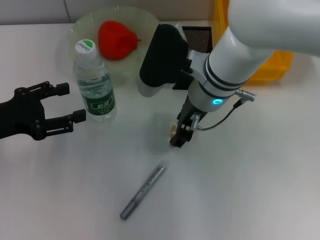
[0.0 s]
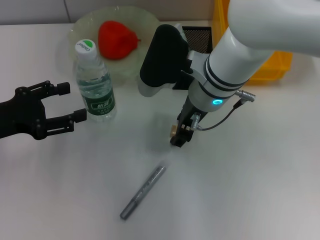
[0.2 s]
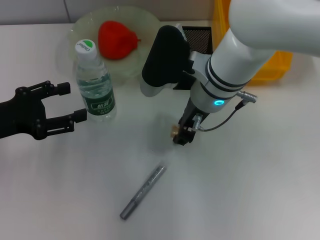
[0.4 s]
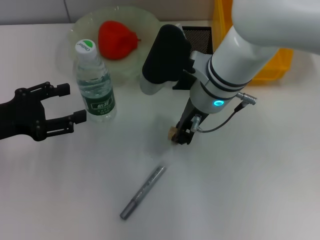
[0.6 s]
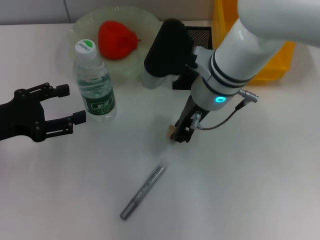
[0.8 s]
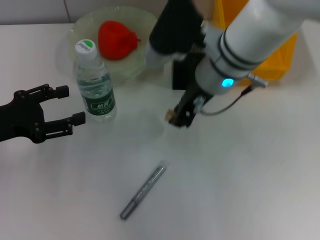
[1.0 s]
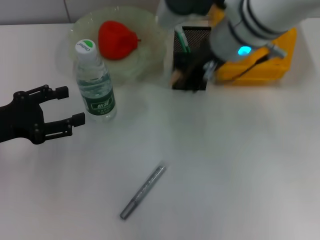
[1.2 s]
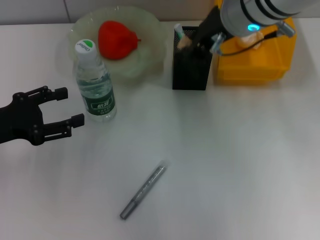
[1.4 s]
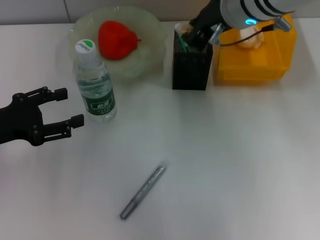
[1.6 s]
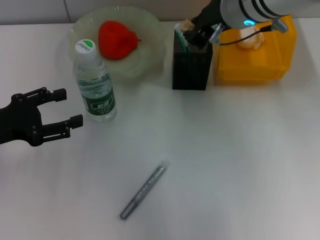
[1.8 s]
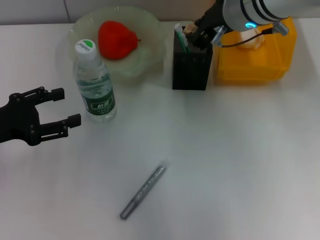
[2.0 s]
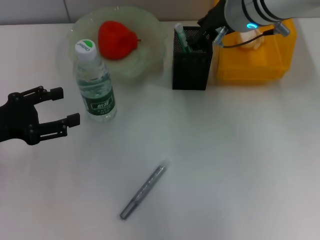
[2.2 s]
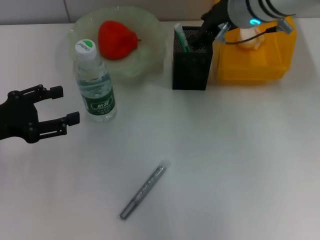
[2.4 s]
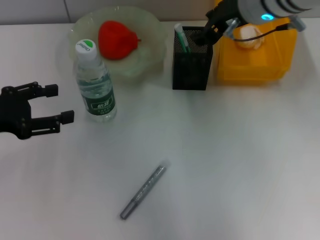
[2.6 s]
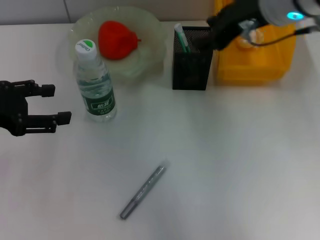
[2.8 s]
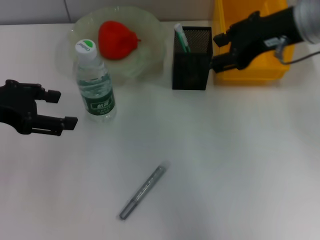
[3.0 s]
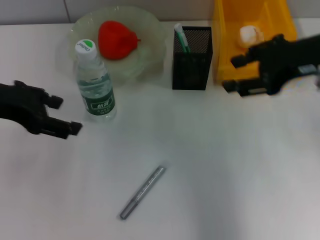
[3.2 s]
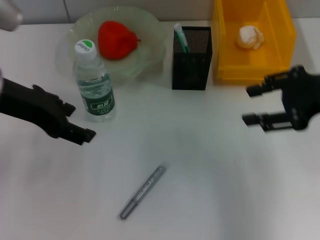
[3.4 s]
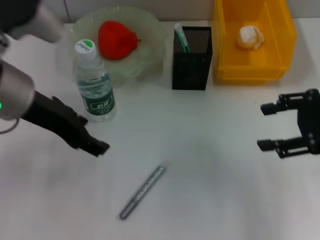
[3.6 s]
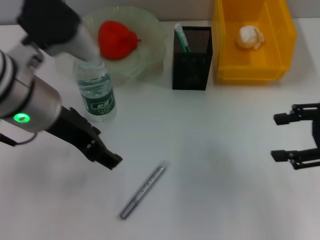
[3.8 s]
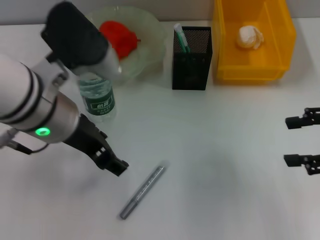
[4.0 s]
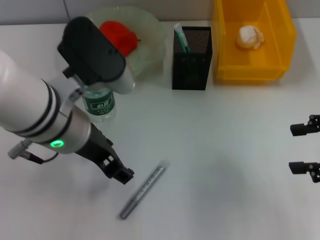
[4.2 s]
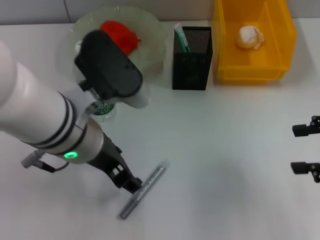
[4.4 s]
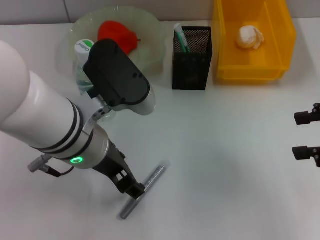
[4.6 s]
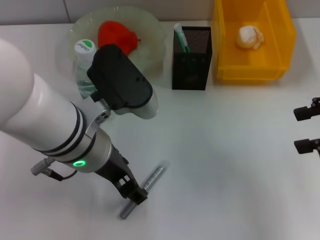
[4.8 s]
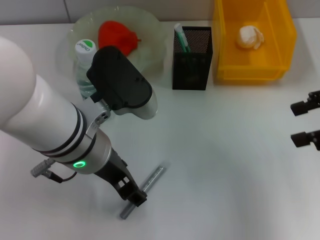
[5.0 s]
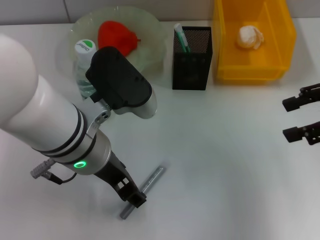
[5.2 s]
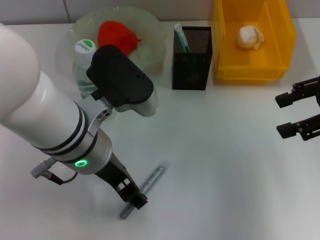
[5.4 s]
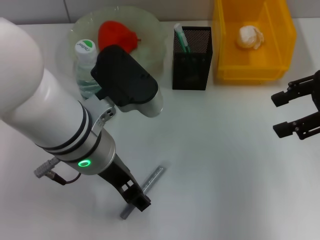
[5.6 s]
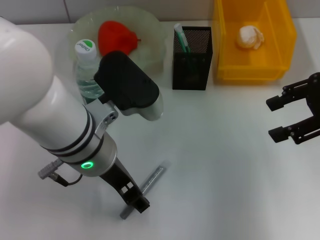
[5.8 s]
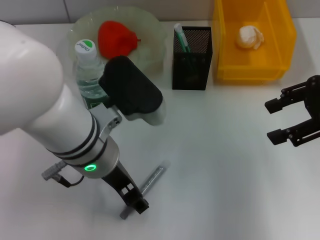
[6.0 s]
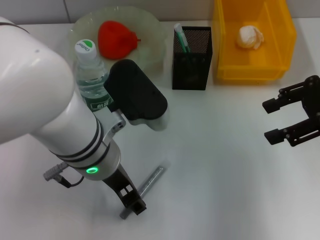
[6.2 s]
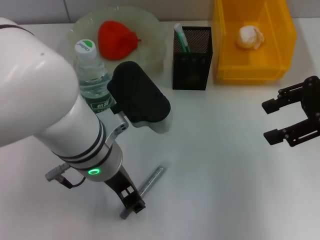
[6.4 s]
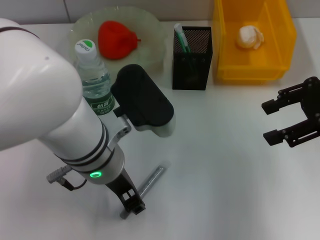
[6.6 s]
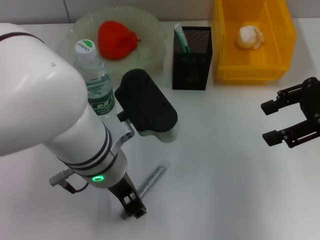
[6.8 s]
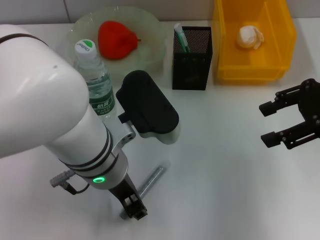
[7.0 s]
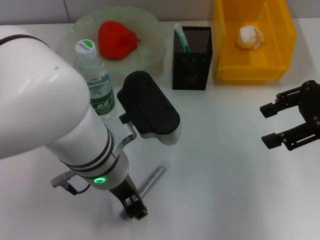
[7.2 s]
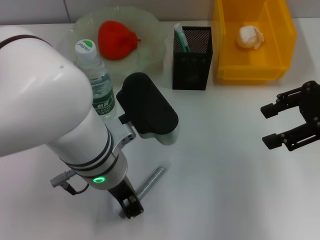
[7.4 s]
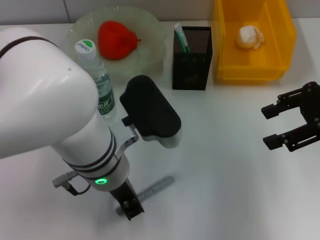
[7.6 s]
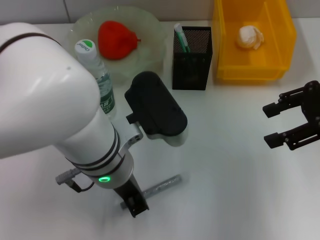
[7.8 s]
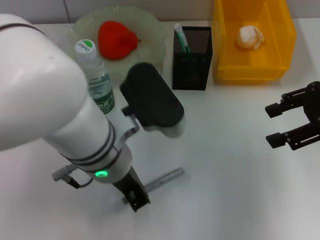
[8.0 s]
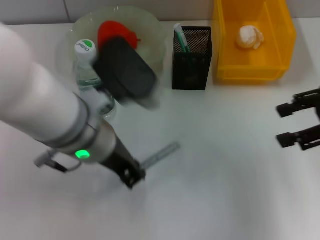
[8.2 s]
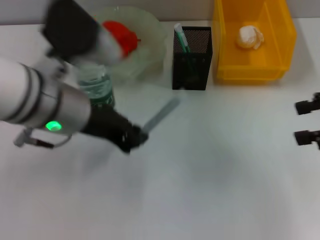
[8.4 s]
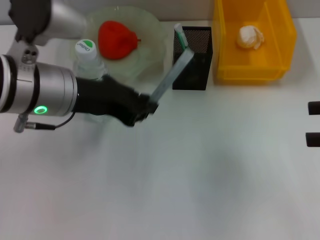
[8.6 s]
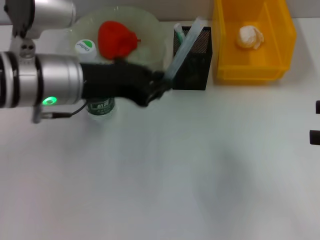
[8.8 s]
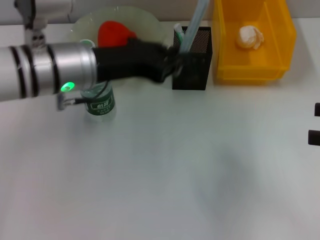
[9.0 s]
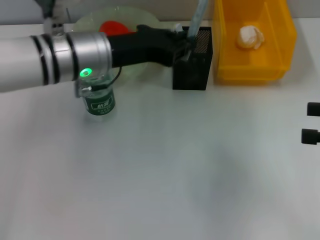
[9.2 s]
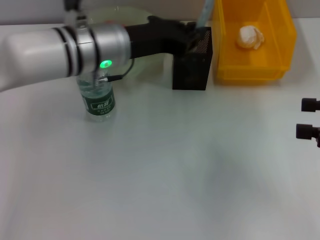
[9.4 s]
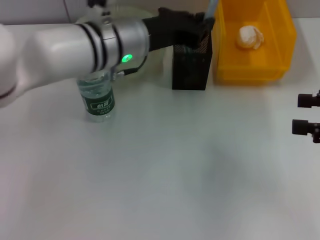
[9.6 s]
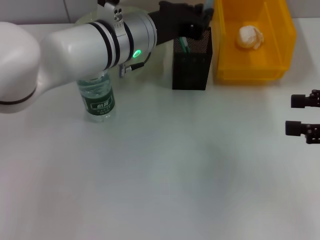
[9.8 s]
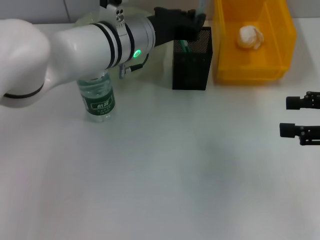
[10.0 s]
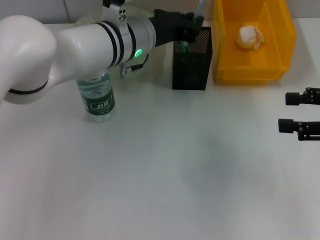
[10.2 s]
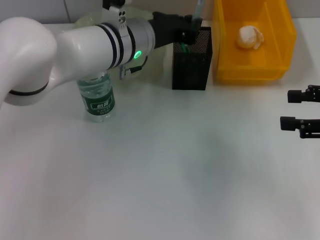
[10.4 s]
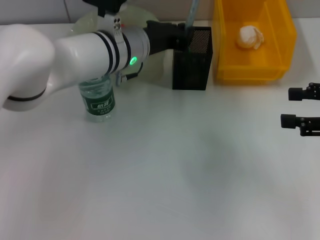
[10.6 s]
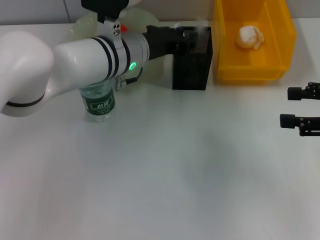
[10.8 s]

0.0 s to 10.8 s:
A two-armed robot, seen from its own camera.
Step, 0.8 to 2.4 s: Put the eraser into the pen holder with the right hand.
Step, 2.6 to 7.8 s: Grab the gray glue with the left hand.
0.0 to 1.6 s: The right gripper shifts about 10 cm upward, and closes.
1.6 to 3.0 s: The right gripper is displaced to the right by some 10 cm, and opens its fingers. Meanwhile the left gripper is displaced upward by some 10 cm.
3.0 to 4.6 s: The left gripper travels to the right by approximately 20 cm. The right gripper is displaced to the right and backward by approximately 20 cm.
4.6 to 6.2 s: The right gripper moves forward, roughly 5 cm.
6.2 to 7.8 s: The left gripper closes.
7.8 to 9.2 s: The right gripper heads backward and to the right, covering some 10 cm. The left gripper moves forward and to the left, some 10 cm.
9.2 to 10.8 s: The left gripper is displaced to the right by roughly 5 cm.

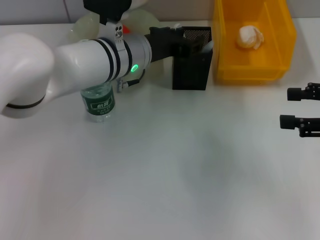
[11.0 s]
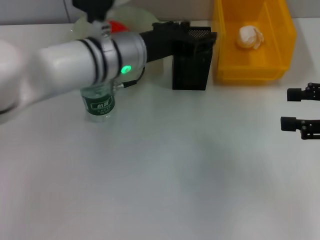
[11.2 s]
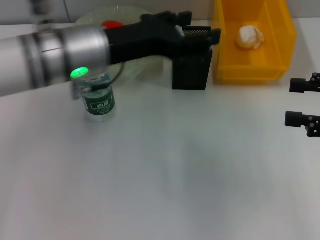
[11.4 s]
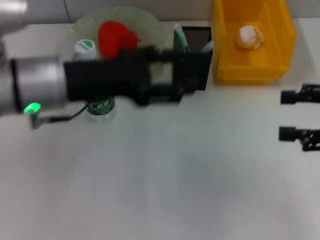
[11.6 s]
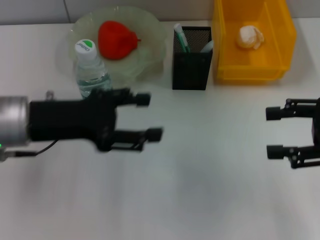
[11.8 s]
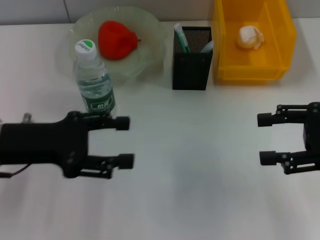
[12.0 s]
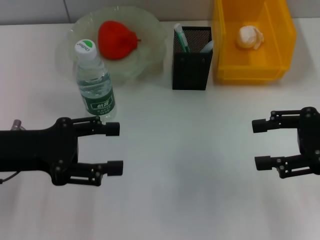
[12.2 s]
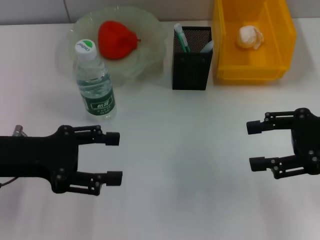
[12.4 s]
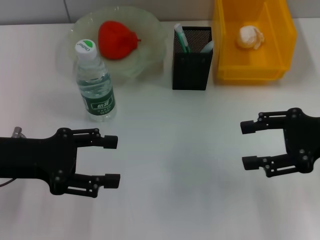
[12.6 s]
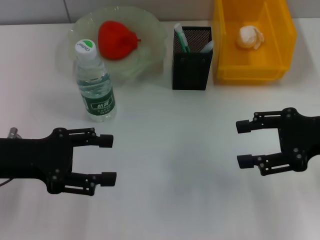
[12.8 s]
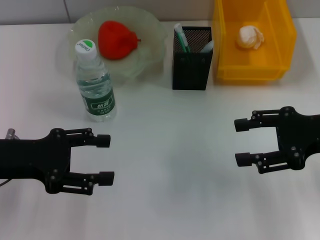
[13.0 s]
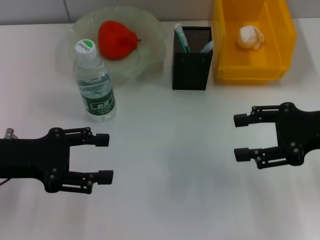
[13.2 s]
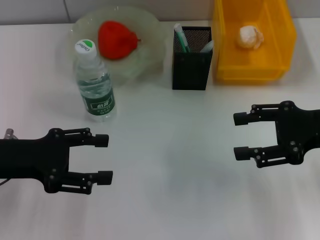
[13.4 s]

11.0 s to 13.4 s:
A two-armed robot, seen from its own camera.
11.0 to 12.2 s: The left gripper heads to the left and backward, covering approximately 25 cm, and opens its fingers.
12.2 to 13.4 s: The grippers stay close to where they were, moving slightly.

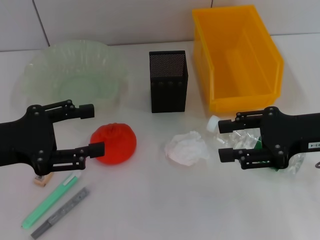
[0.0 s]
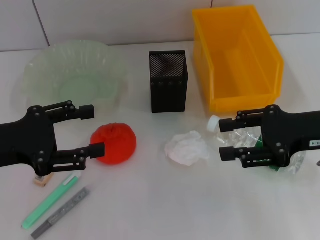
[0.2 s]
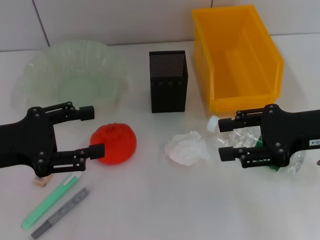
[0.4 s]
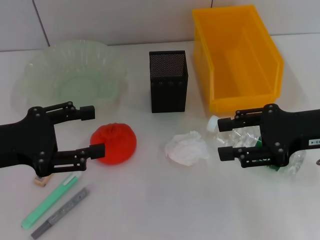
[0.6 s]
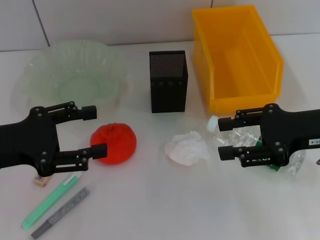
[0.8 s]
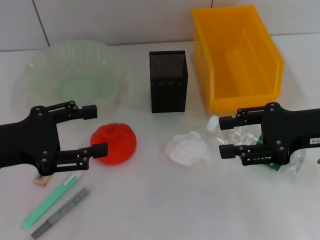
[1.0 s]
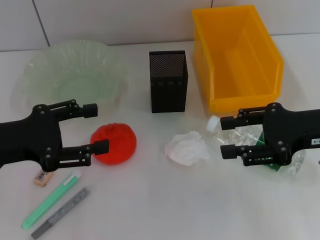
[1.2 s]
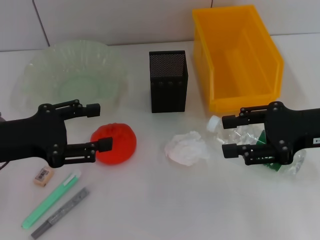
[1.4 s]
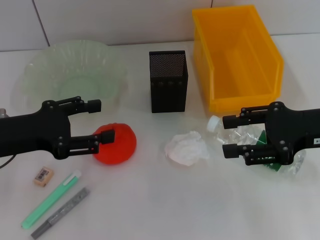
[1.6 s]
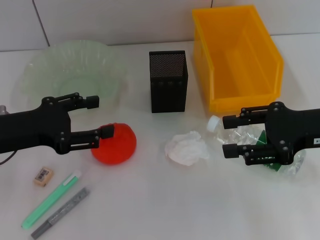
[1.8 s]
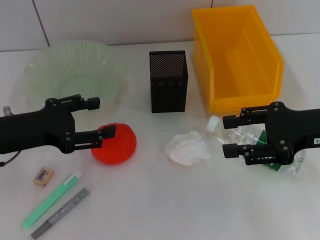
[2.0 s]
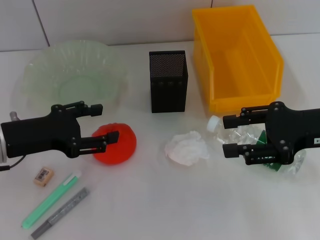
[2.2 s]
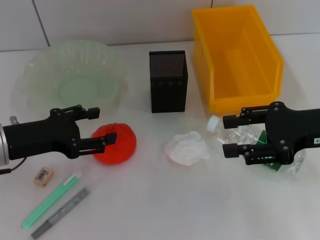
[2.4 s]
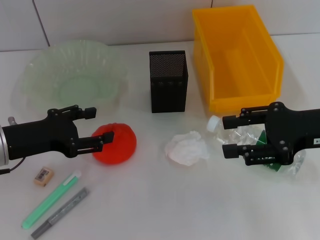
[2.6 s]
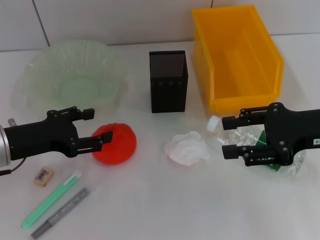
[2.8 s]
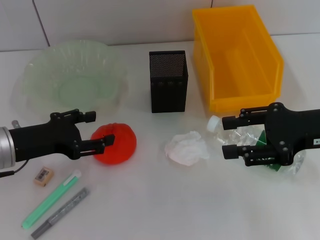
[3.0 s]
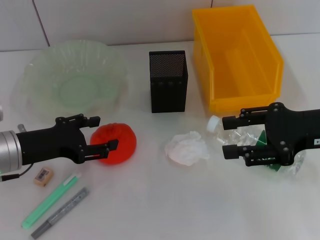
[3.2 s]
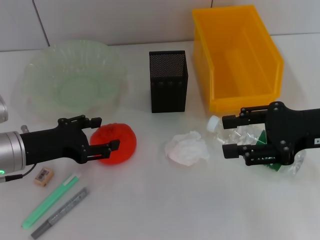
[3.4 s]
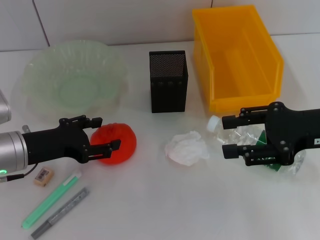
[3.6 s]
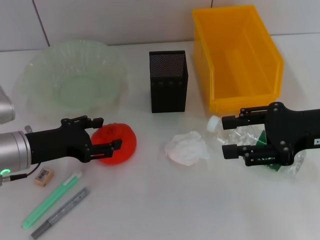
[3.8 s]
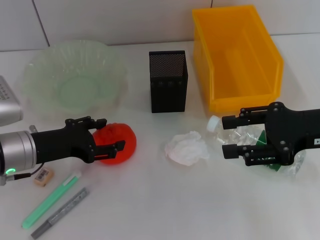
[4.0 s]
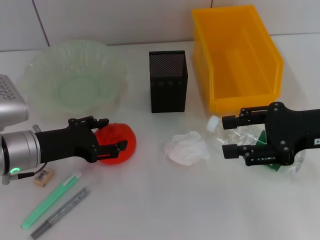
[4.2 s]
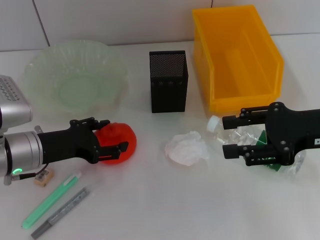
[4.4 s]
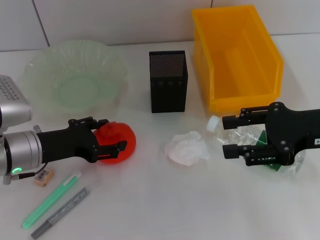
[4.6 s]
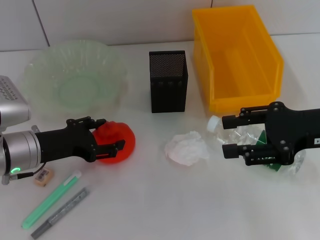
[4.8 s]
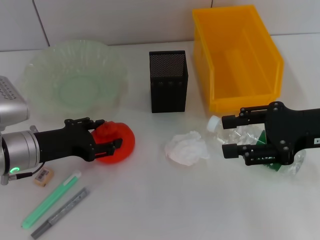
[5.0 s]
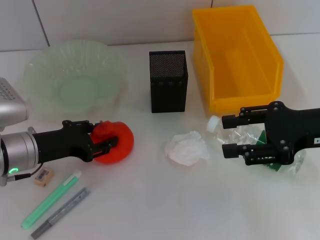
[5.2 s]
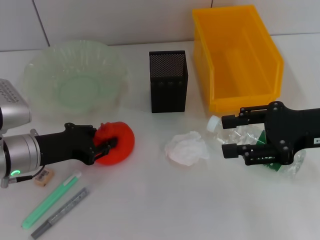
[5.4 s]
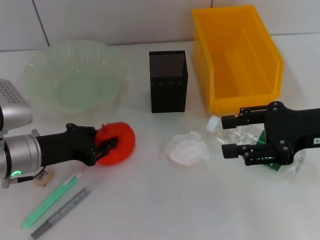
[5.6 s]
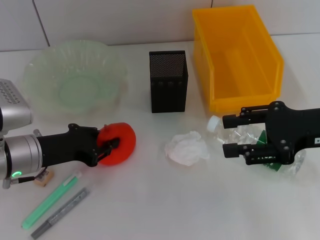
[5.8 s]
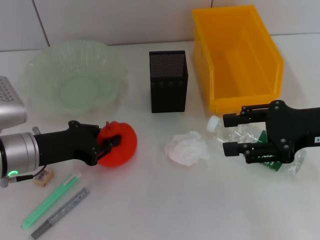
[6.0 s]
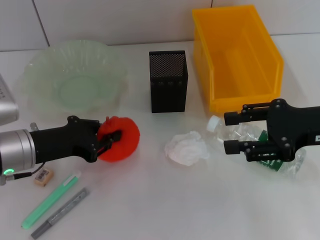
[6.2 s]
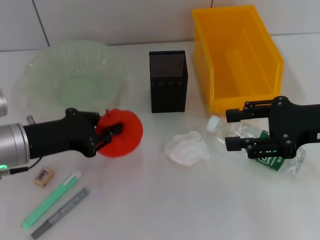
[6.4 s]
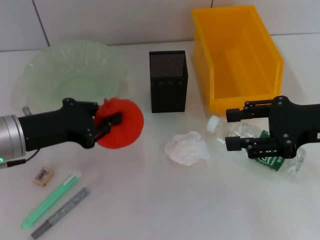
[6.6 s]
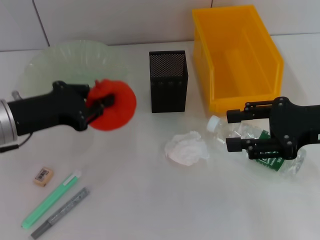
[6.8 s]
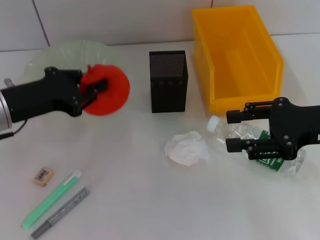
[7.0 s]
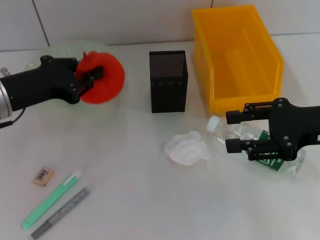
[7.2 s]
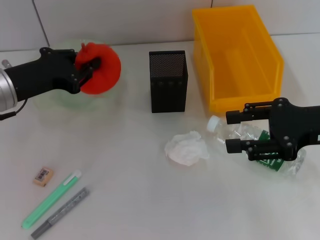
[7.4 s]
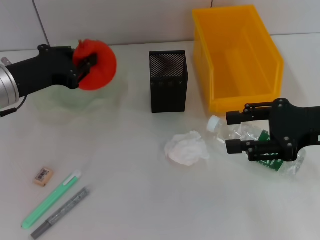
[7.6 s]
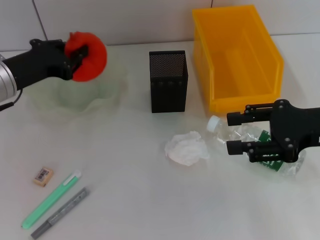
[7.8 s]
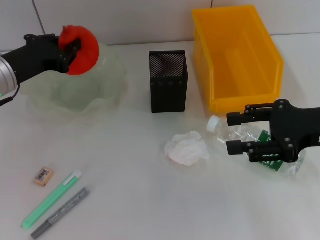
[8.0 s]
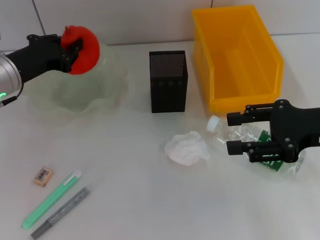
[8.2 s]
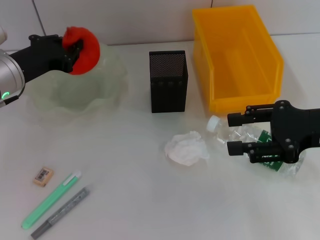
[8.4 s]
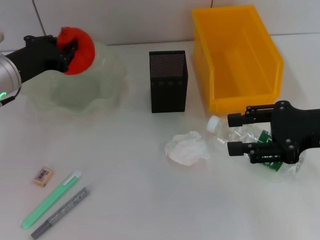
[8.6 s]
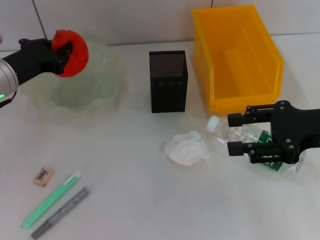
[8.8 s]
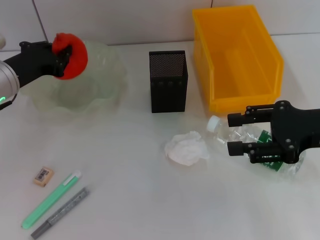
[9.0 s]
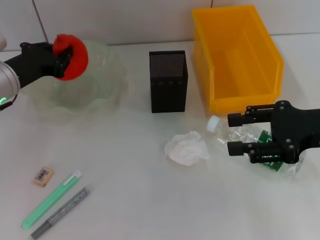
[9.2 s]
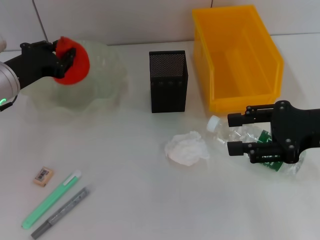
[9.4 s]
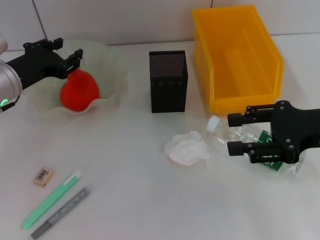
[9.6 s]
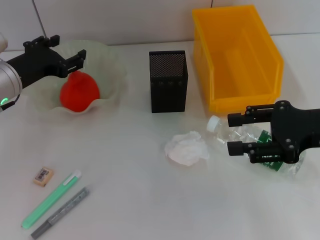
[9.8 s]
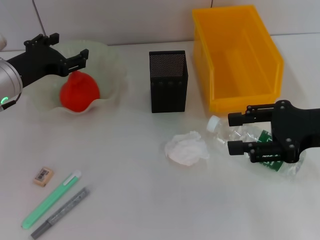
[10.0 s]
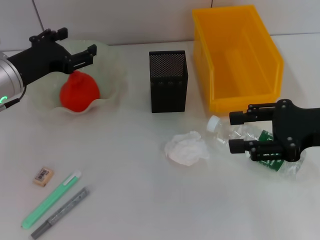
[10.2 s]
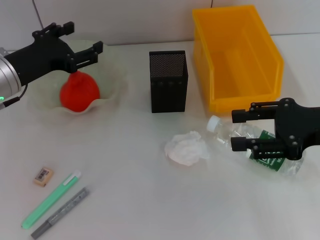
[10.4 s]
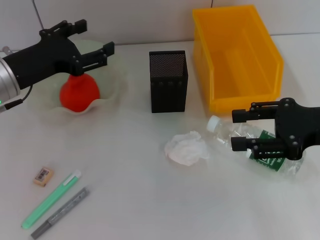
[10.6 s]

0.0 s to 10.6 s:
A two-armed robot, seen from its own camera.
Step, 0.0 to 5.8 s: Grab the orange with the left hand.
Step, 6.0 to 9.8 s: Place the orange into the fruit bowl with the left hand.
0.0 to 1.6 s: There are only small adjustments of the grippers.
1.6 to 3.0 s: There are only small adjustments of the grippers.
3.0 to 4.6 s: The grippers stay close to where they were, moving slightly.
4.6 to 6.0 s: The left gripper closes its fingers.
6.0 to 7.6 s: The left gripper travels upward by roughly 5 cm.
7.6 to 9.0 s: The grippers move only a little.
9.0 to 10.6 s: The left gripper shifts by some 5 cm, and opens its fingers.
